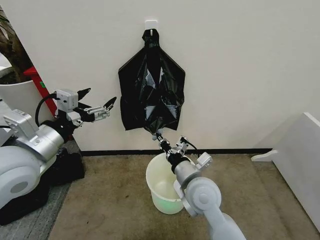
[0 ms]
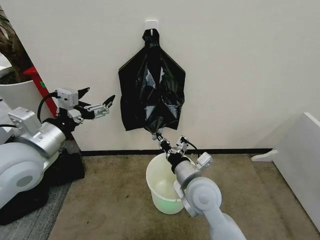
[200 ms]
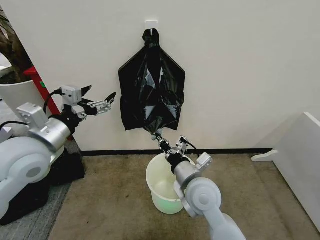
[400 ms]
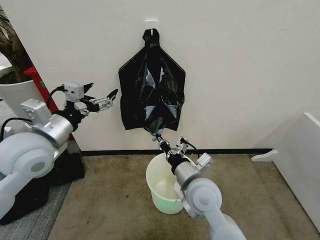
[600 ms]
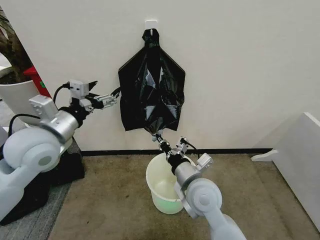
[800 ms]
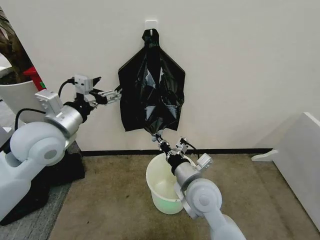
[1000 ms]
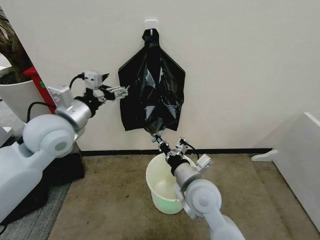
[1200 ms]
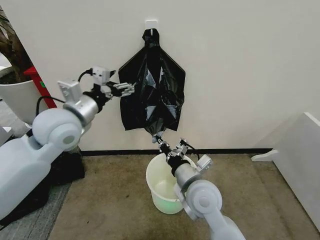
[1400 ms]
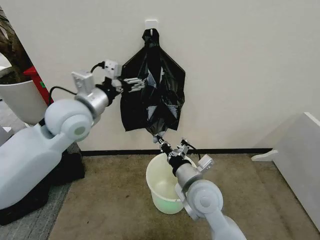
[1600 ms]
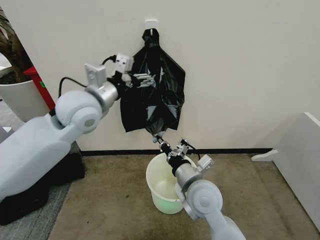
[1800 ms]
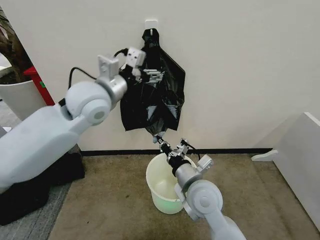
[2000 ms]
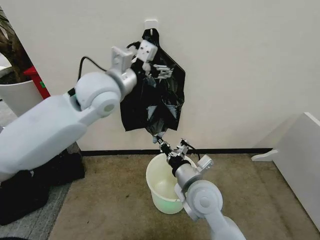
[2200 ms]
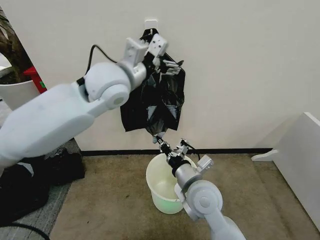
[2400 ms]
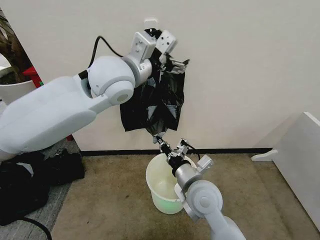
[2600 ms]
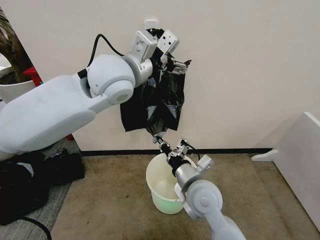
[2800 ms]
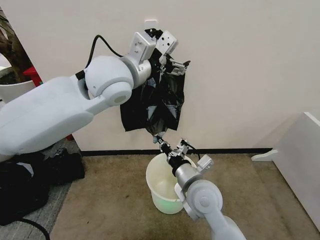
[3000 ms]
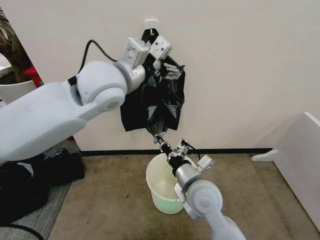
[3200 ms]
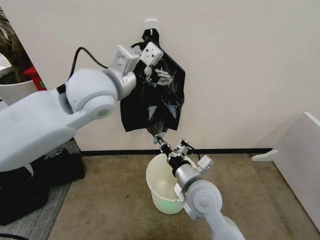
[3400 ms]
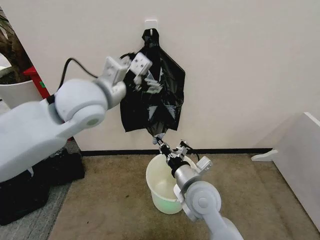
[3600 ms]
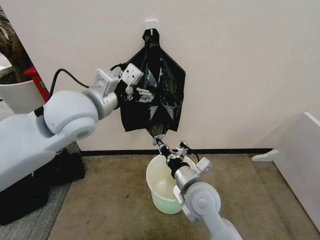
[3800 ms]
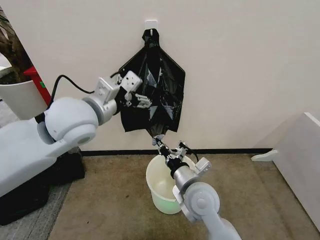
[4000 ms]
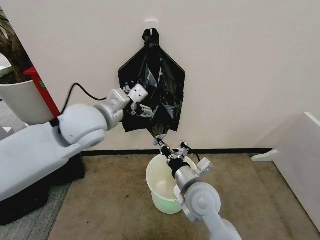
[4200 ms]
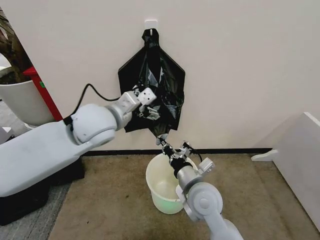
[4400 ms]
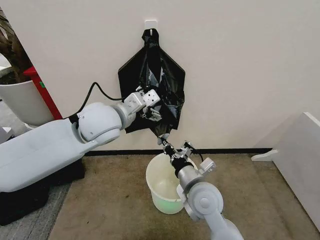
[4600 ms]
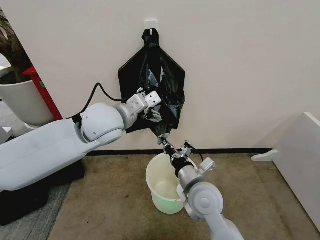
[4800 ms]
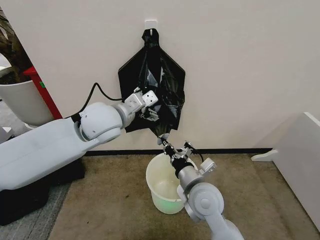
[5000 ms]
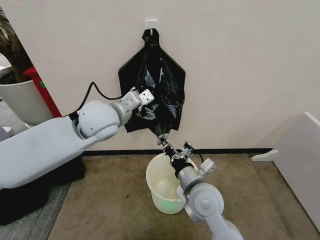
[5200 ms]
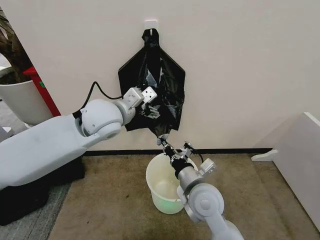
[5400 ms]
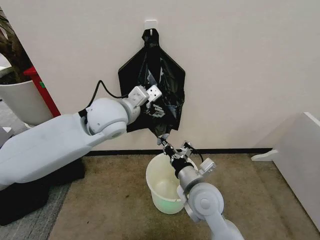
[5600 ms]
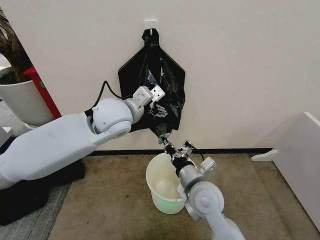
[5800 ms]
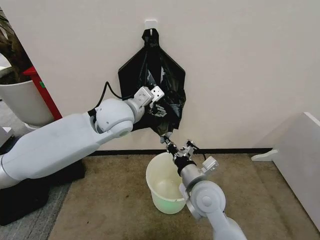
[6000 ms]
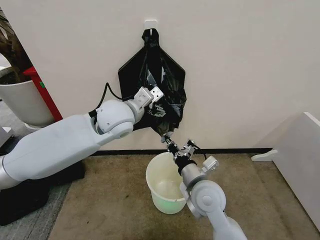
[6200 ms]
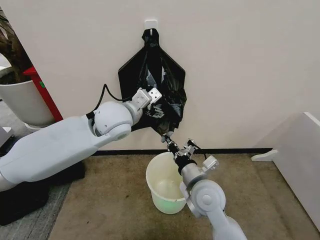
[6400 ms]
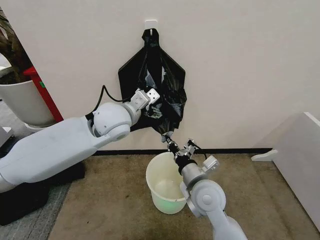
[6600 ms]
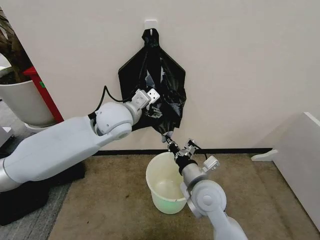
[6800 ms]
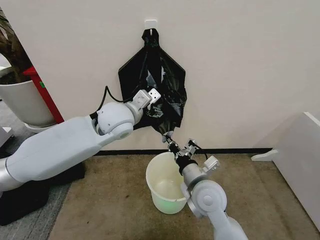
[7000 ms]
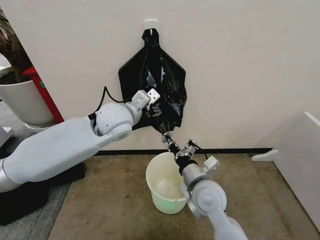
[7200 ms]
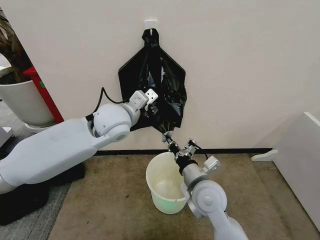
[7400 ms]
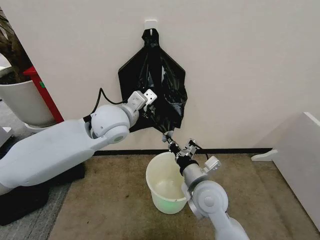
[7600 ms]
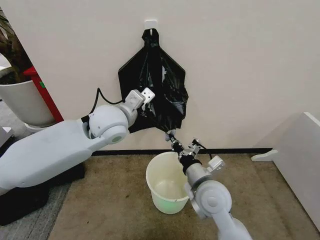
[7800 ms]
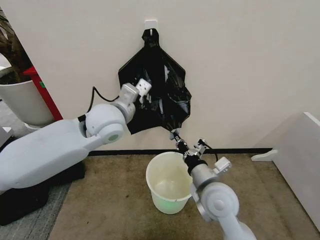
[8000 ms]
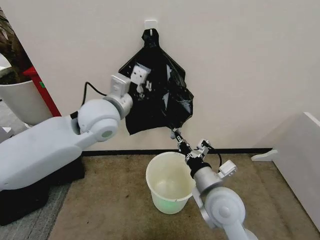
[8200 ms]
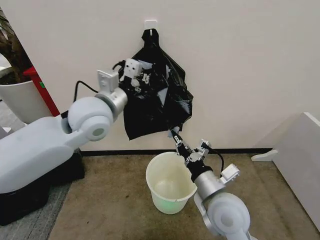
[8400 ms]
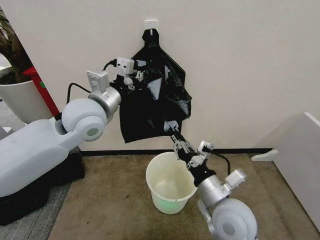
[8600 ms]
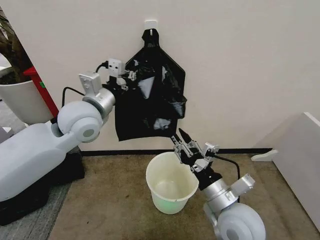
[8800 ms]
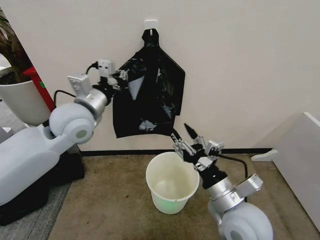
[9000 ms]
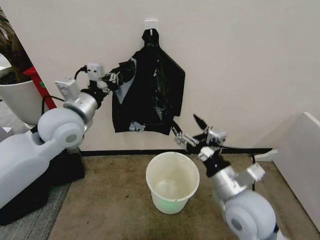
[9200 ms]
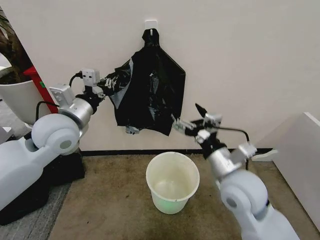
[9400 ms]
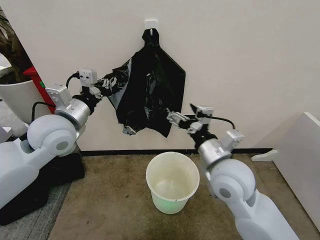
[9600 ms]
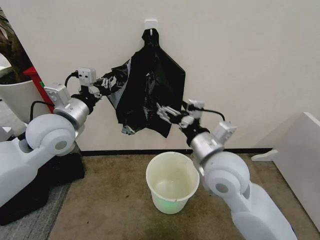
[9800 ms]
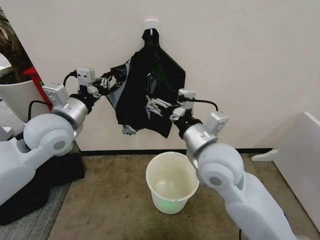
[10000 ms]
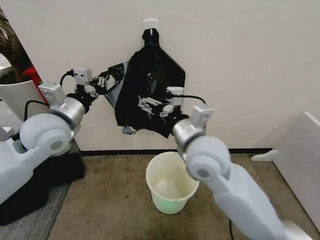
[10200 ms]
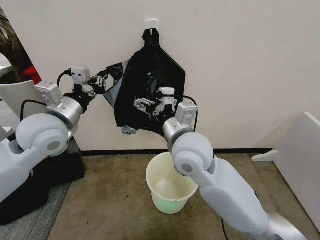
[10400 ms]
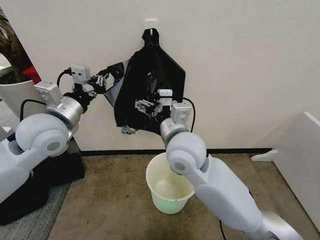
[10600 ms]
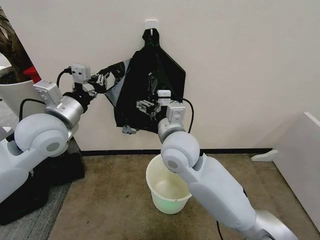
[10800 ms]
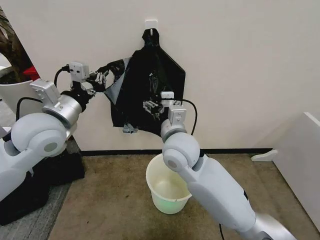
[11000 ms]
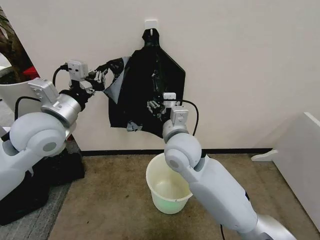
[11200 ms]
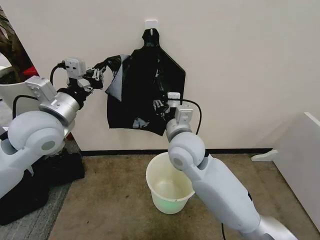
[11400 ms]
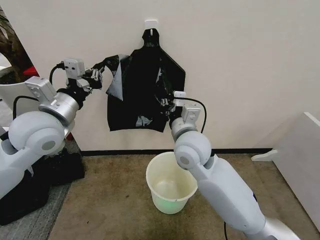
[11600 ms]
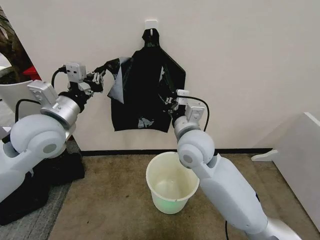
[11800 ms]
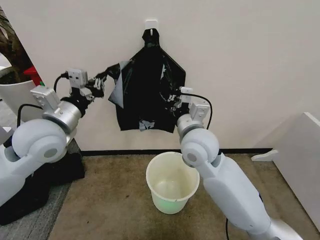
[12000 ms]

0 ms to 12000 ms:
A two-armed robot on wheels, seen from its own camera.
Task of the whole recording: Place the garbage bag over the trash bin.
0 ms to 1600 ms: The left gripper travels forward and to the right by roughly 15 cm.
1600 ms to 3000 ms: The left gripper moves to the right and upward, roughly 15 cm.
3000 ms to 4400 ms: The left gripper travels downward and to the left by about 10 cm.
4400 ms to 6000 ms: The left gripper changes place by about 5 cm.
6000 ms to 7600 ms: The left gripper closes its fingers.
7600 ms to 9000 ms: The right gripper goes roughly 10 cm backward and to the right, and opens up. Meanwhile the left gripper moves to the left, about 10 cm.
9000 ms to 10400 ms: The left gripper is displaced to the left by approximately 5 cm, while the right gripper moves forward, to the left and upward, roughly 20 cm.
10400 ms to 12000 ms: The right gripper closes up.

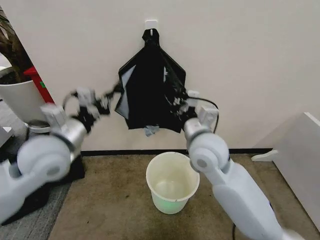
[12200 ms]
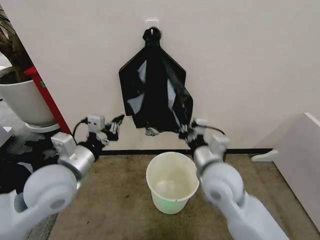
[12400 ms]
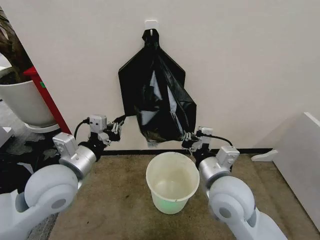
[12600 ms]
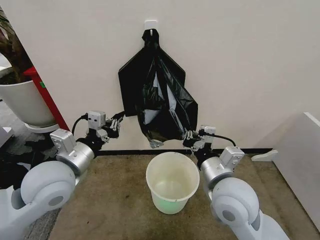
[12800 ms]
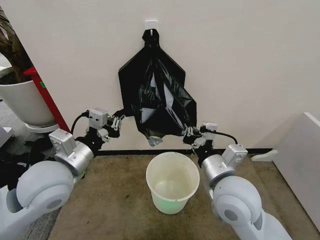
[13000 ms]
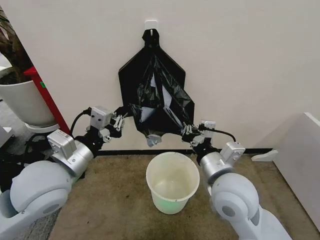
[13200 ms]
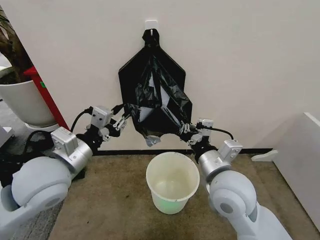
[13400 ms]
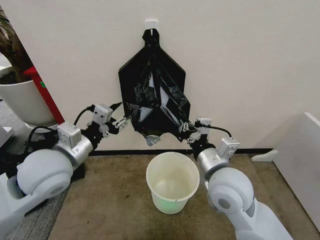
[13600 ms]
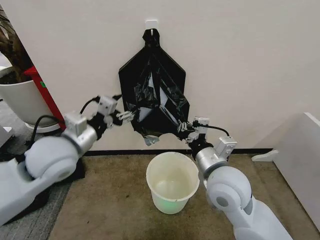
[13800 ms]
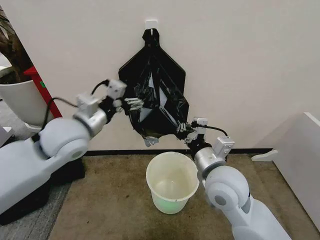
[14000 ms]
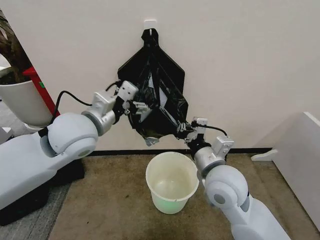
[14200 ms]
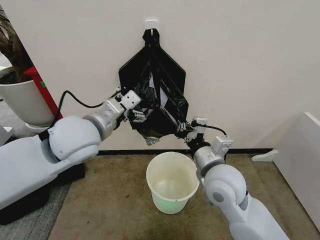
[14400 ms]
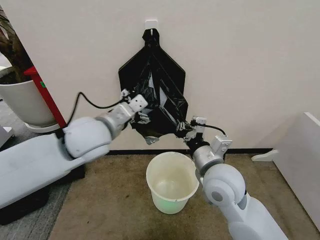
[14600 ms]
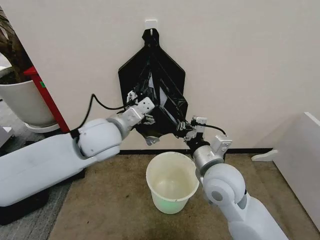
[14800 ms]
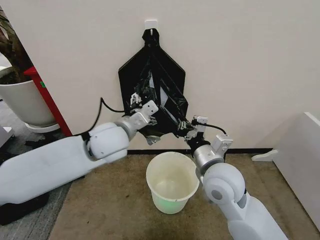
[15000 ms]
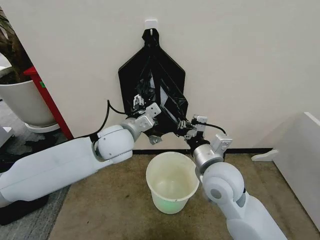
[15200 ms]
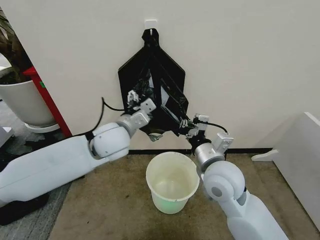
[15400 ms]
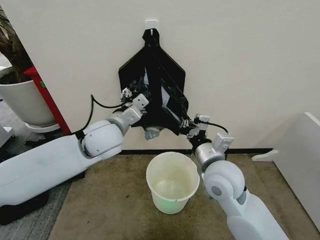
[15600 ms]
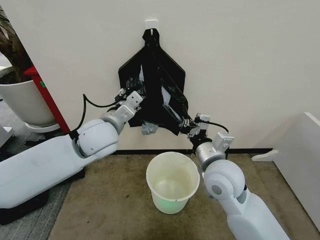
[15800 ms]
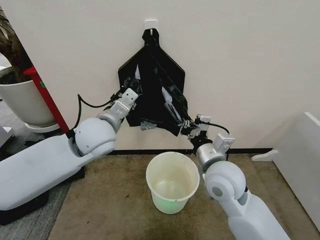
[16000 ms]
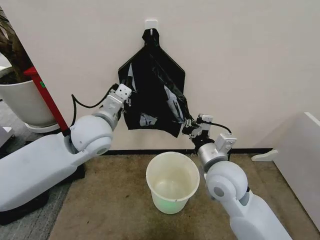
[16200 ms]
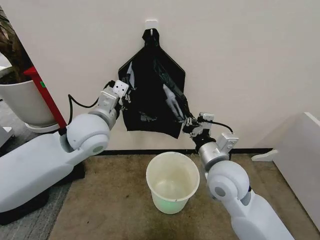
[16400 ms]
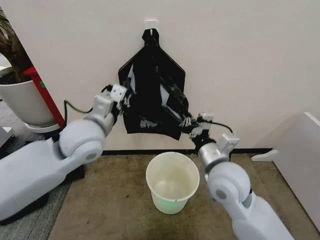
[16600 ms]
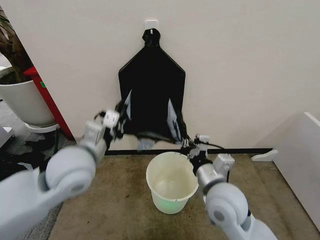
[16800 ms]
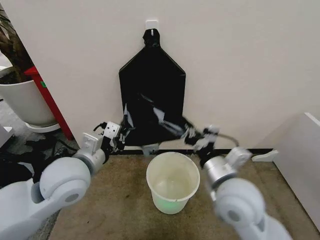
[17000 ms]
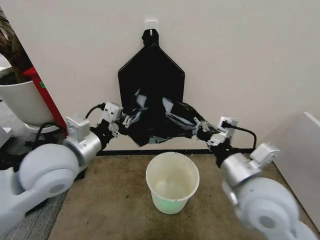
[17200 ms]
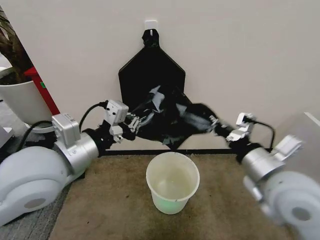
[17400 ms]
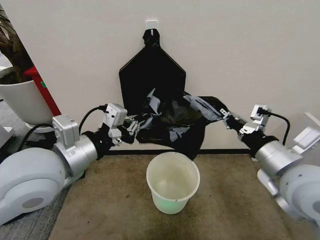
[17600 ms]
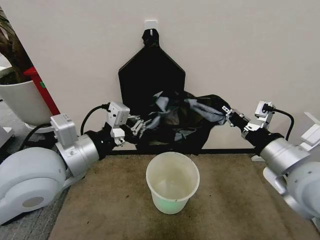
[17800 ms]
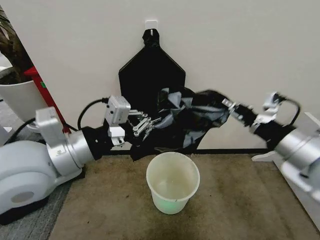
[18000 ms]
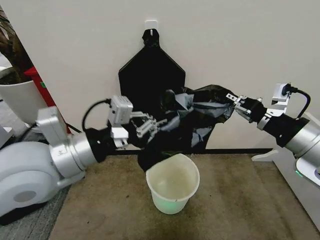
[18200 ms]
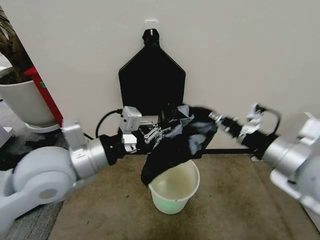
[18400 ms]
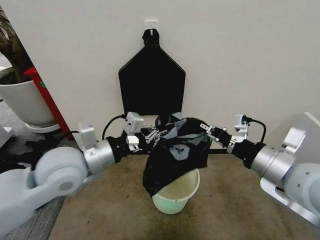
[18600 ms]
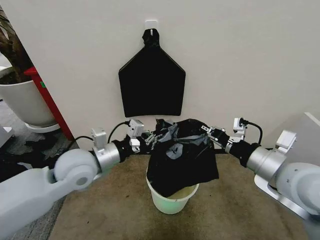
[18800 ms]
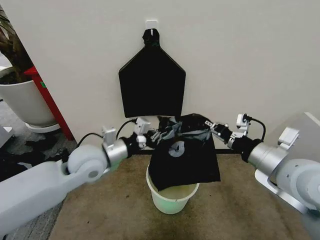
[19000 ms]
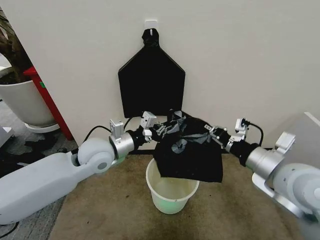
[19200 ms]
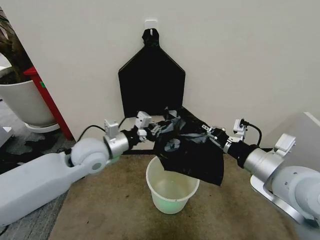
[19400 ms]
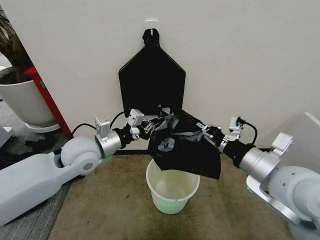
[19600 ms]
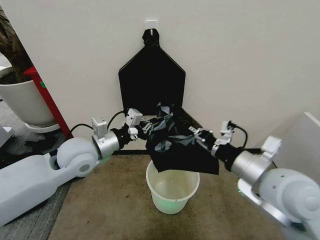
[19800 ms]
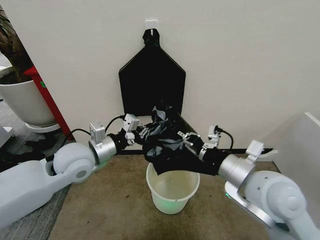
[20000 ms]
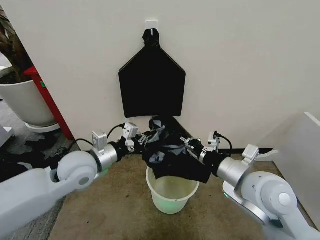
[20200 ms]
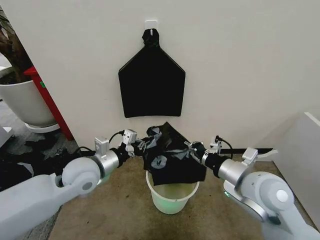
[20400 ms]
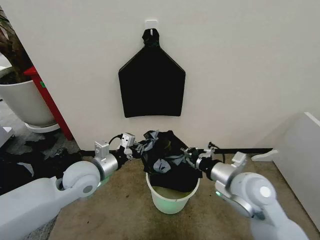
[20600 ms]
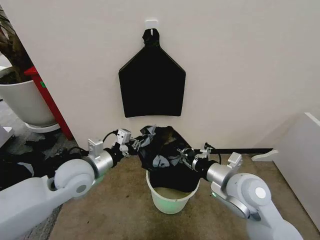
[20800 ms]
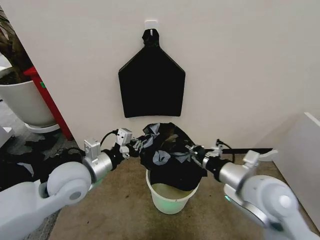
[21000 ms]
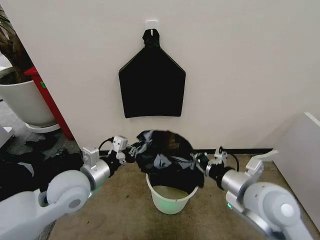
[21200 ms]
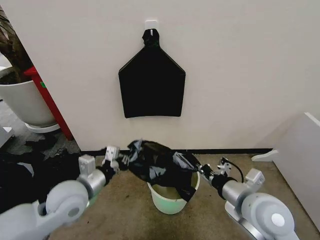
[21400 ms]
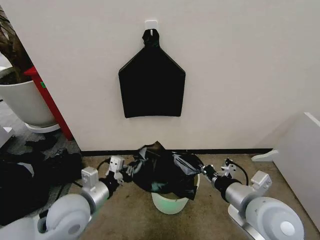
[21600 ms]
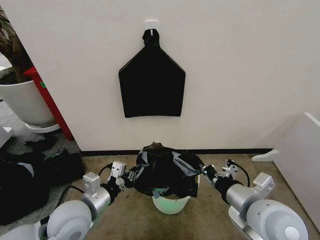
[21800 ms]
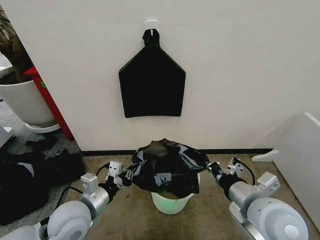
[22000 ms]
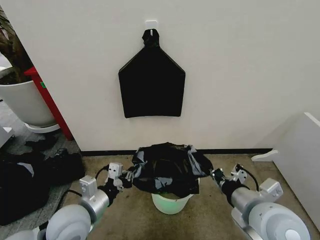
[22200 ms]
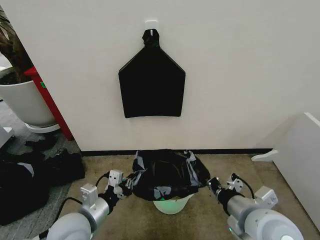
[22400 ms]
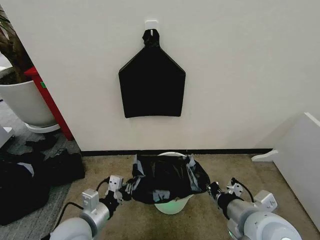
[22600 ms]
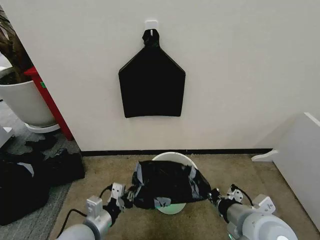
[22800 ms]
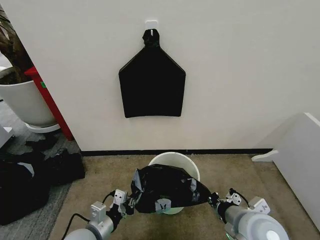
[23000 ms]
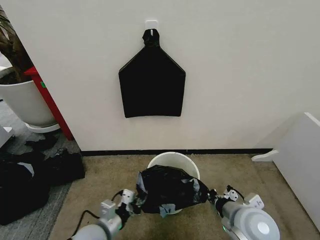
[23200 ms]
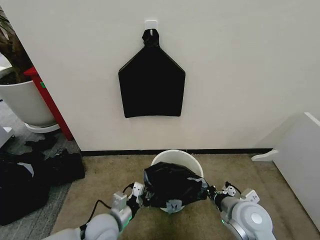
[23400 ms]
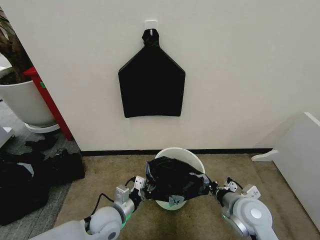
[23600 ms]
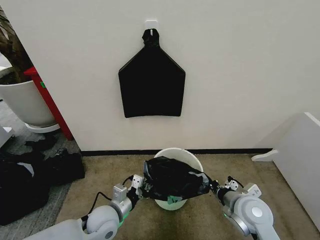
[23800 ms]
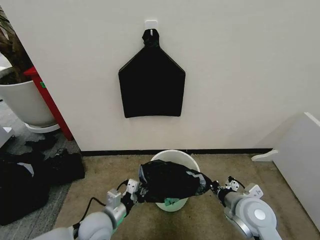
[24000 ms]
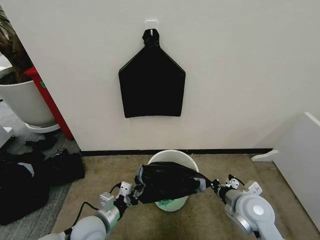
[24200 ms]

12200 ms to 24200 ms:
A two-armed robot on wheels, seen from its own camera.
Task of the whole recording: Place the garbage bag over the trash bin.
12200 ms to 13800 ms: The left gripper opens, while the right gripper moves backward, some 5 cm.
13800 ms to 15200 ms: The left gripper shifts approximately 15 cm to the right and forward.
15200 ms to 16600 ms: The left gripper travels to the left by approximately 5 cm, and closes its fingers.
16600 ms to 18200 ms: The left gripper heads backward and upward, covering some 10 cm, while the right gripper travels to the right and upward by approximately 20 cm.
18200 ms to 19800 ms: The right gripper moves downward and to the left, approximately 10 cm; the left gripper heads downward and forward, covering roughly 15 cm.
19800 ms to 21200 ms: The right gripper heads downward, covering some 5 cm, while the left gripper heads backward and downward, covering some 10 cm.
21200 ms to 22600 ms: The left gripper heads backward and downward, covering approximately 10 cm; the right gripper shifts some 5 cm backward.
22600 ms to 24200 ms: The left gripper goes roughly 10 cm downward. The right gripper heads downward and forward, covering about 10 cm.
